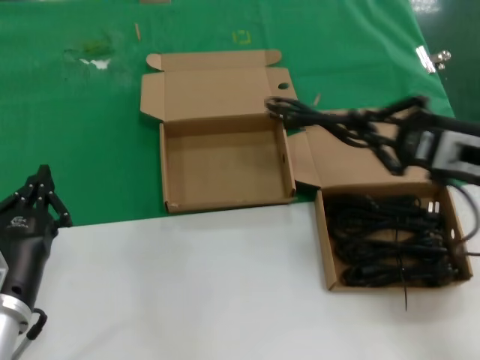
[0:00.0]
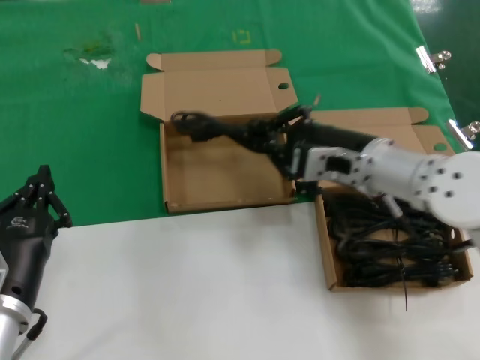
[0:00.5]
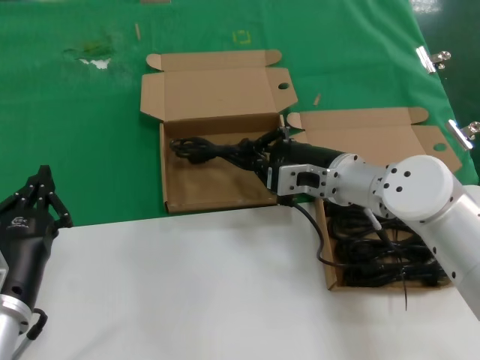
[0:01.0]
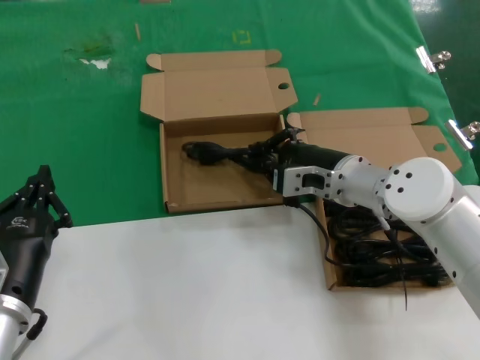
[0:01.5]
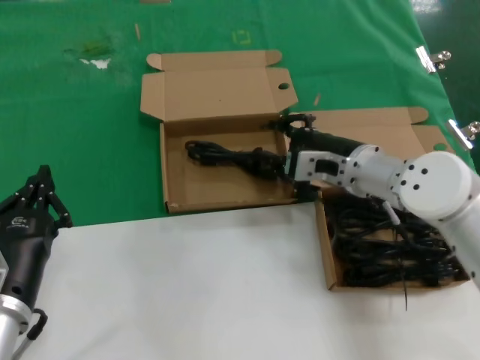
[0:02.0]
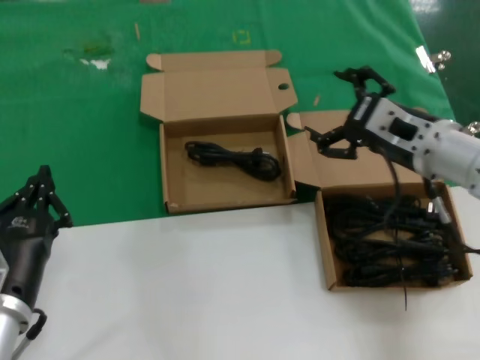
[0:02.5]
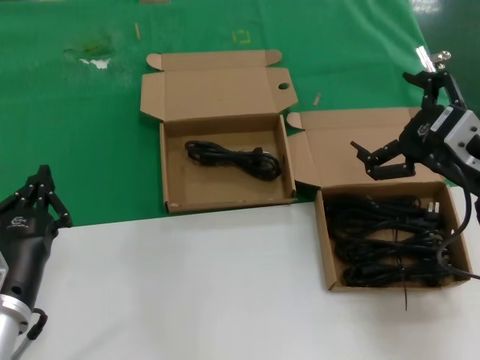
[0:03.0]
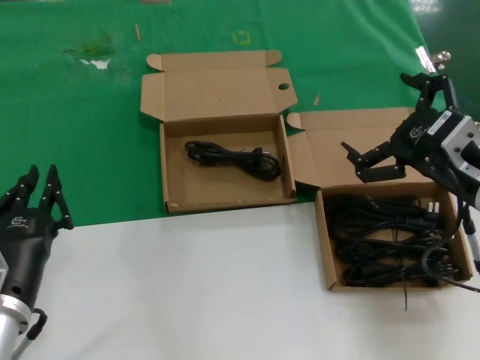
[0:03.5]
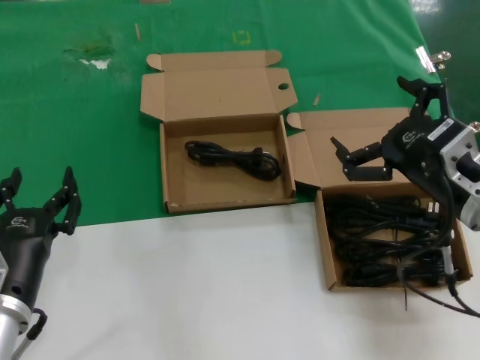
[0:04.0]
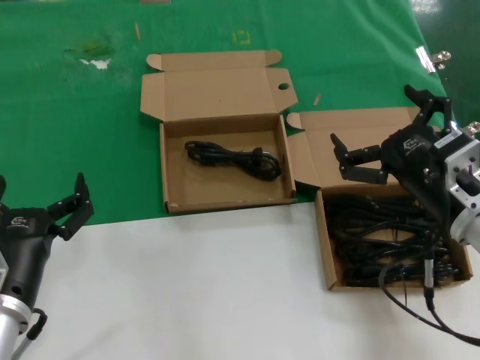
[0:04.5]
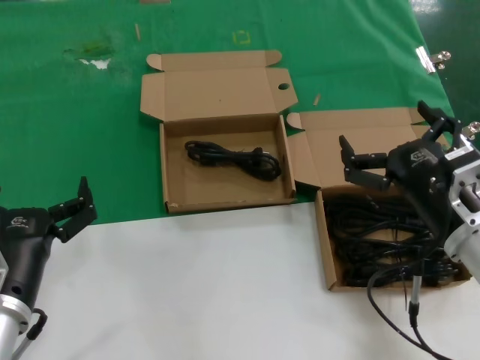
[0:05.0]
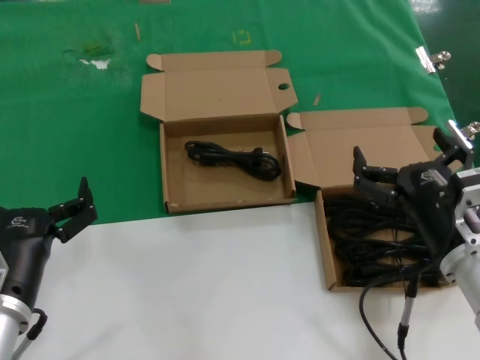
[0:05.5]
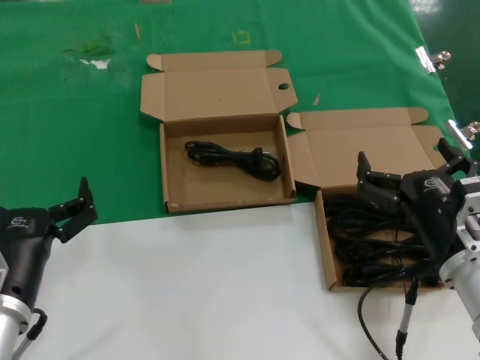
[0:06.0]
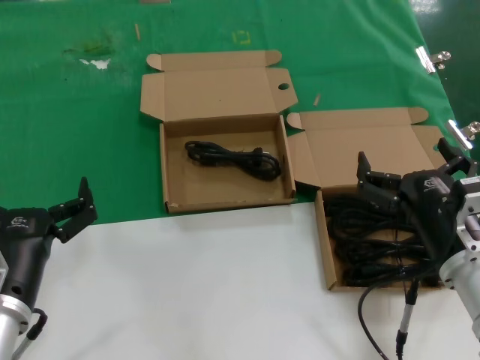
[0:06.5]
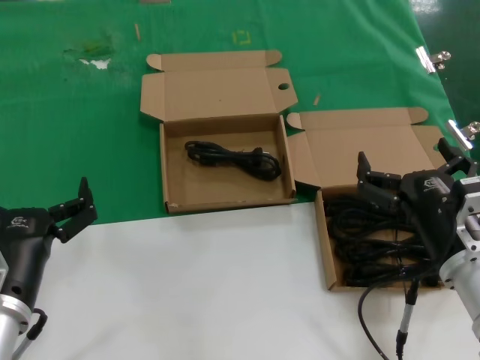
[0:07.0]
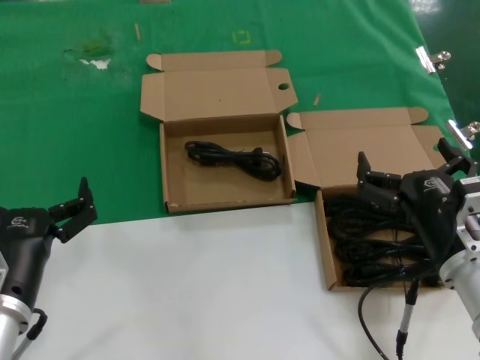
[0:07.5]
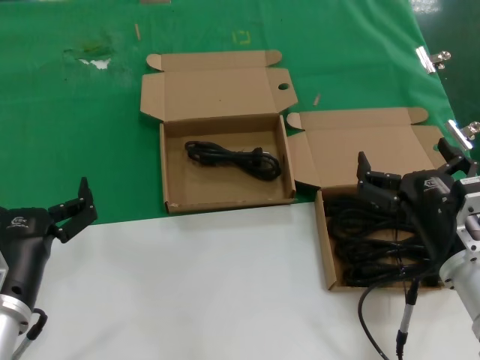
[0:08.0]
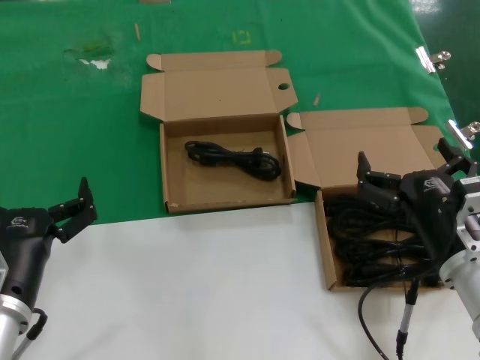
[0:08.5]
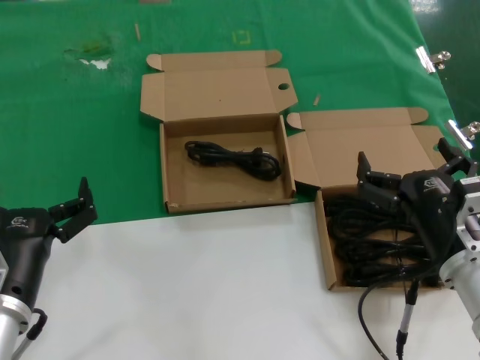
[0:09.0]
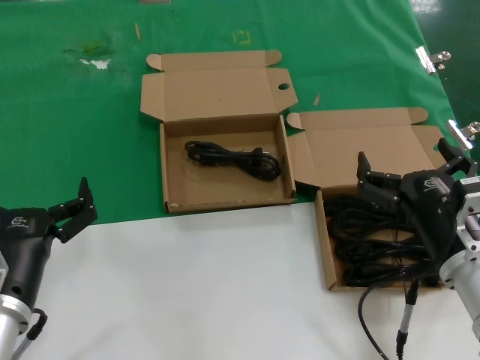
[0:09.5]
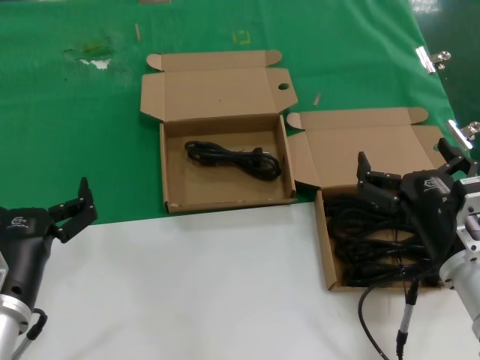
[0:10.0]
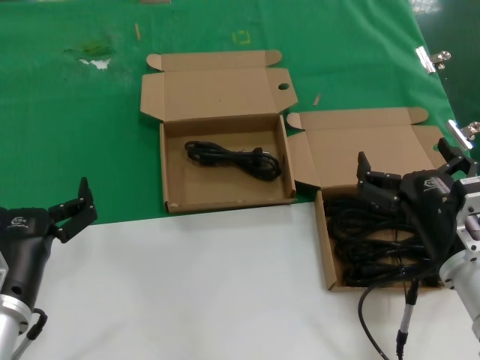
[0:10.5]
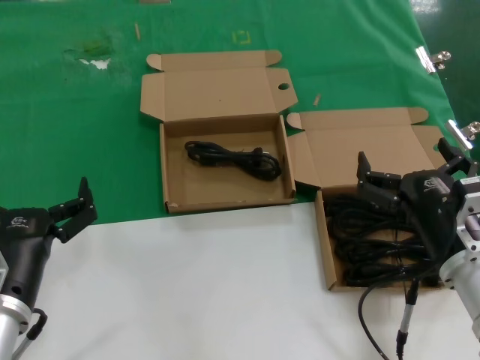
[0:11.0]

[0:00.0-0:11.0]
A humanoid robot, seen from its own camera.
Task of the whole recording: take the parts from the box containing them and put them into an empty box.
Step, 0:00.0 to 0:01.5: Place the data cable in the another box.
0:00.0 to 0:02.0: The right hand is displaced to the left, forward and downward by approximately 20 cm.
0:02.0 to 0:03.5: The right hand is displaced backward, to the right and upward by roughly 20 cm.
0:03.5 to 0:05.5: The right hand heads downward, covering roughly 10 cm.
0:05.5 to 0:11.0: Both hands stay put.
